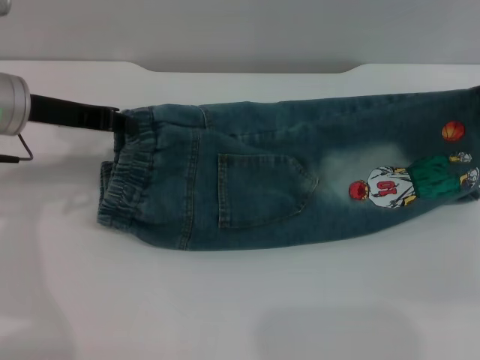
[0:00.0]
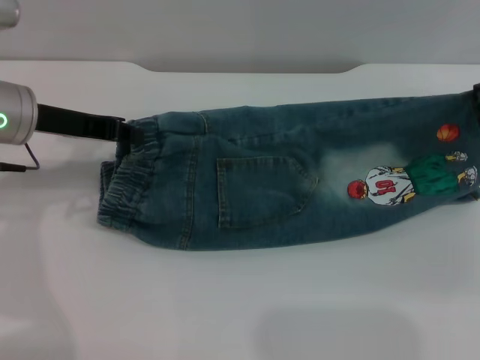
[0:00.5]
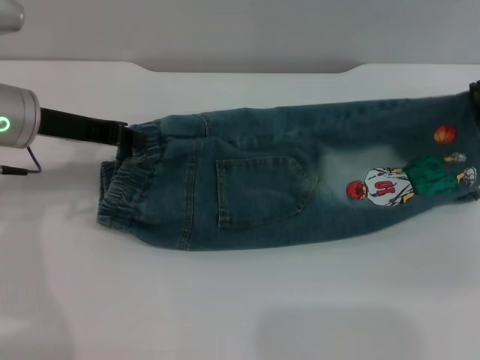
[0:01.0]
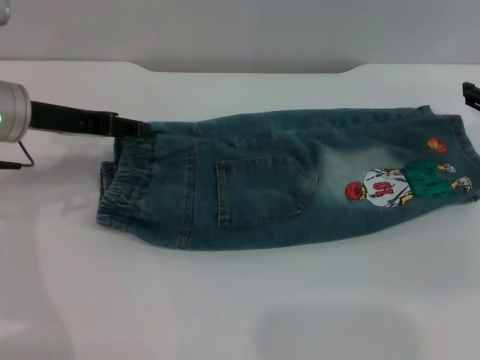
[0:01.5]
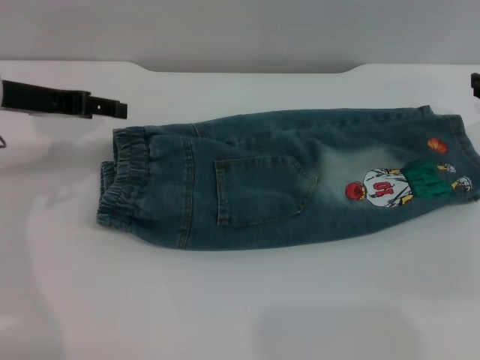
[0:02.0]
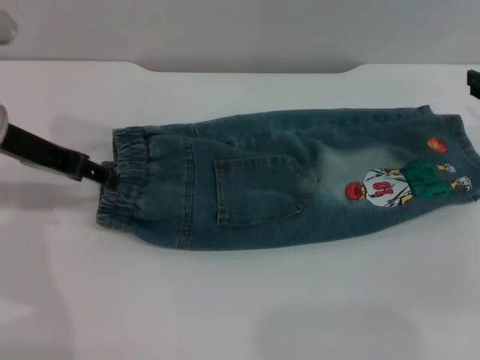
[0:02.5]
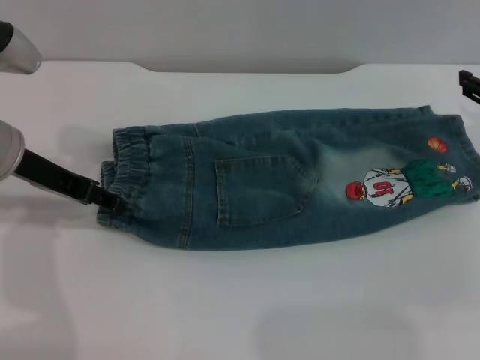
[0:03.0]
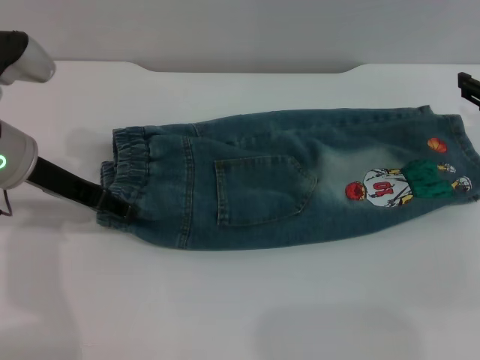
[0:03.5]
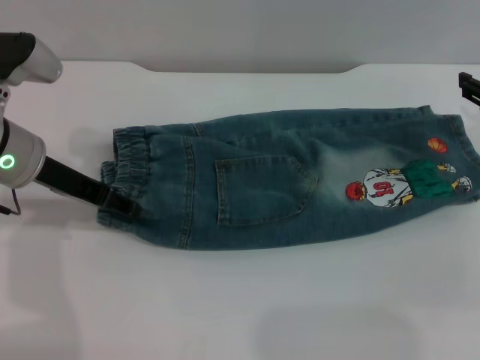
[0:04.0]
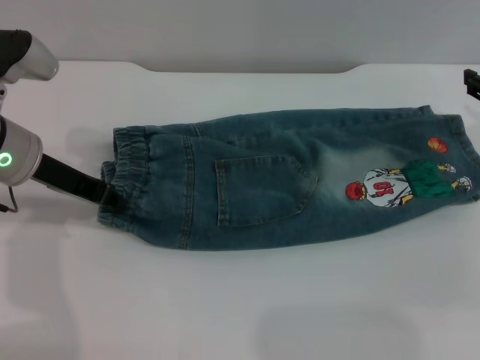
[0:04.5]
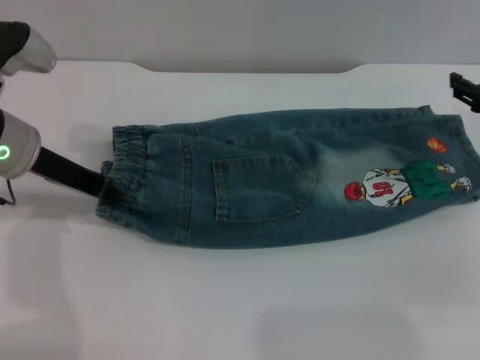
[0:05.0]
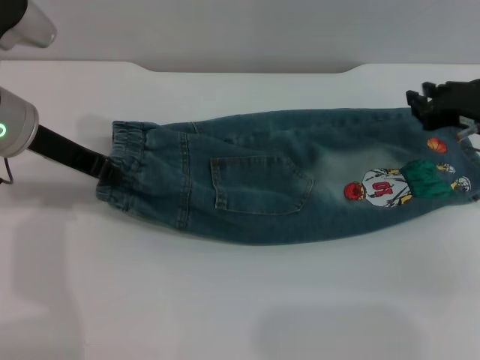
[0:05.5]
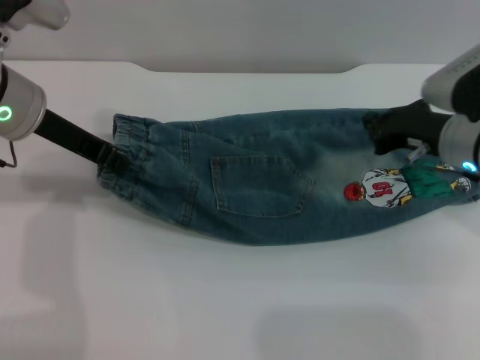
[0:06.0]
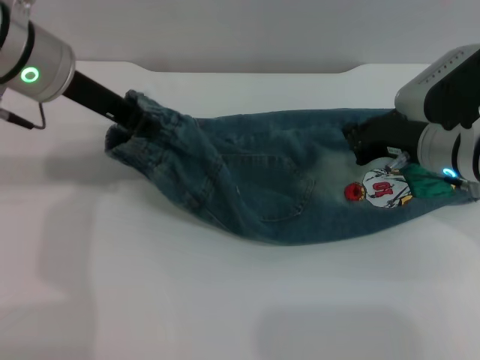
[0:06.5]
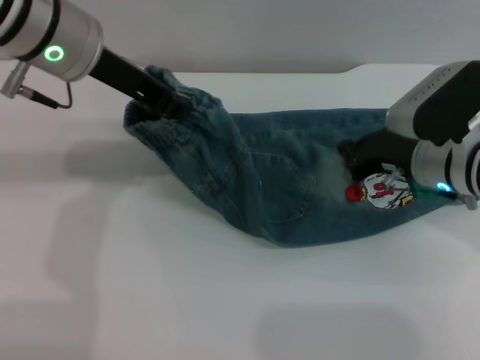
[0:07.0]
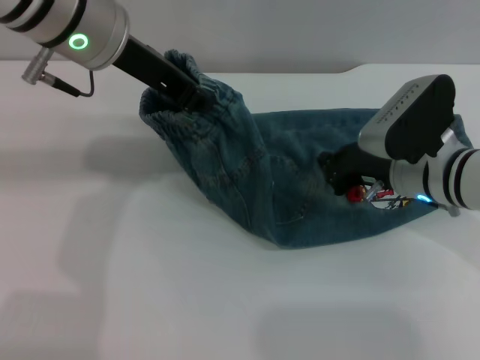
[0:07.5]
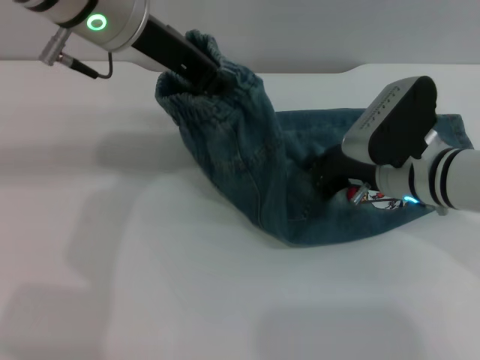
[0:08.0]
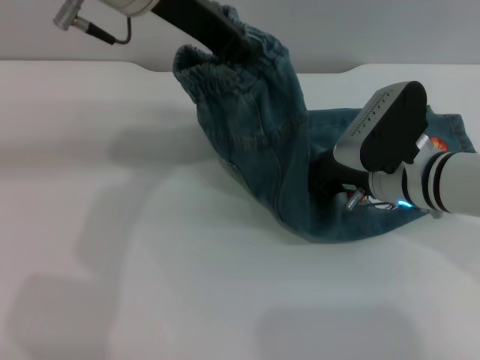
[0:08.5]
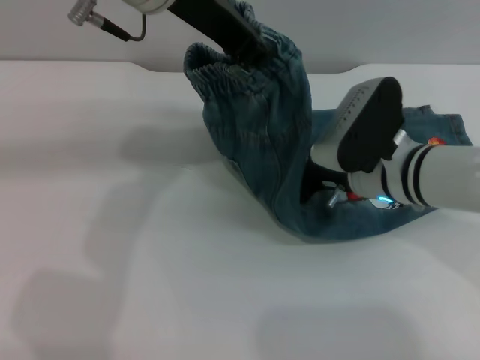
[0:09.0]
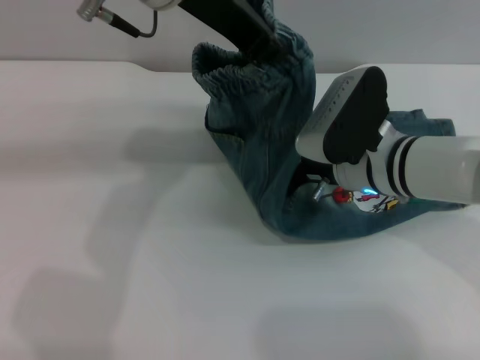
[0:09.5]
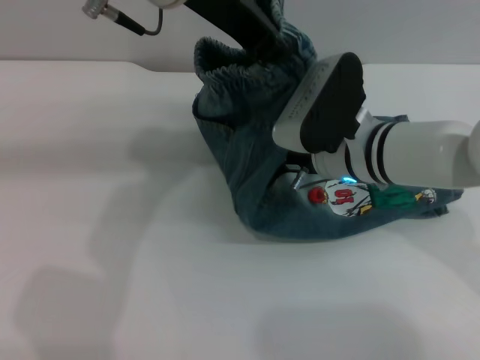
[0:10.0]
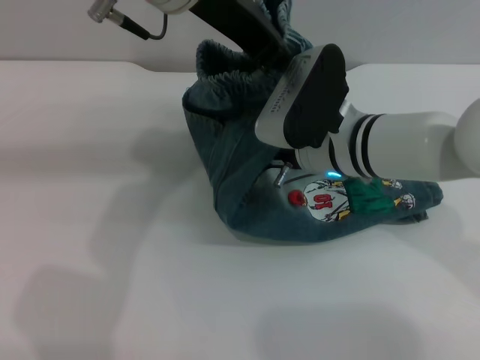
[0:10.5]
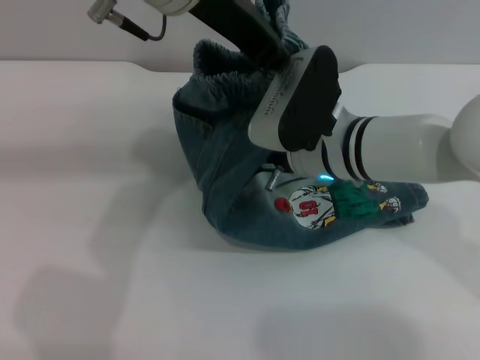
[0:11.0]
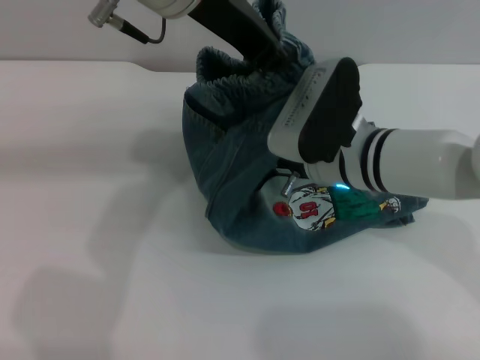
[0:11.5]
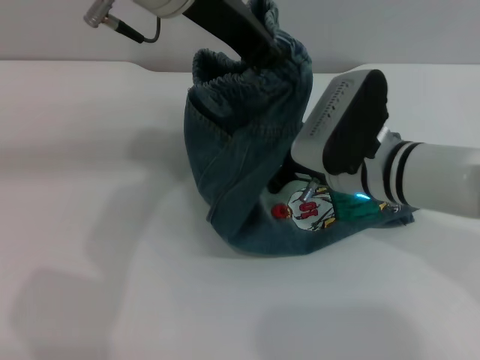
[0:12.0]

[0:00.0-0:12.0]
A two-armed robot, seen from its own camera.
0:00.0 to 0:02.0: The left gripper opens its fingers. The right gripper opens its fingers.
0:02.0 to 0:04.0: The left gripper ends up approximately 5 cm from where it was.
0:04.0 to 0:06.0: The left gripper shifts roughly 5 cm upward, and closes. The right gripper shifts roughly 10 cm to the left, and closes its fingers.
0:06.0 to 0:08.0: The left gripper goes roughly 10 cm to the right and upward, while the right gripper shifts approximately 5 cm to the left.
0:08.0 to 0:10.0: The right gripper shifts approximately 5 cm to the left. Meanwhile the left gripper changes place by some 5 cm.
0:10.0 to 0:12.0: The grippers make only small movements.

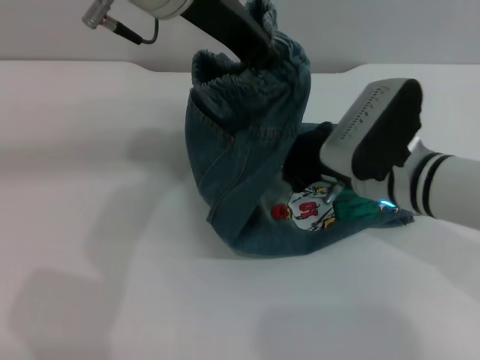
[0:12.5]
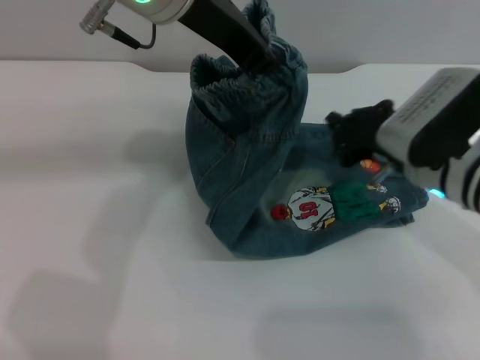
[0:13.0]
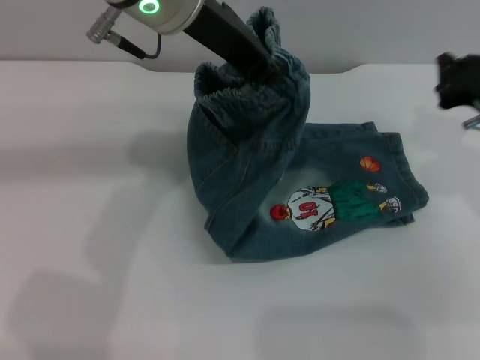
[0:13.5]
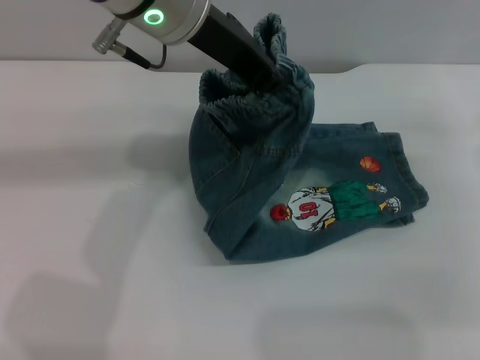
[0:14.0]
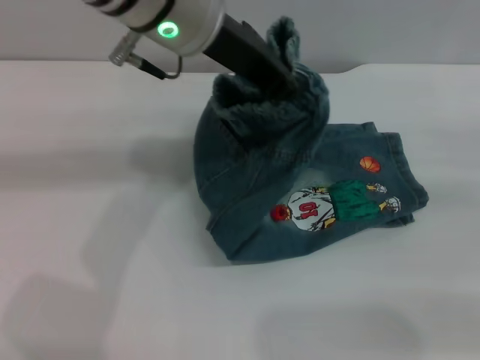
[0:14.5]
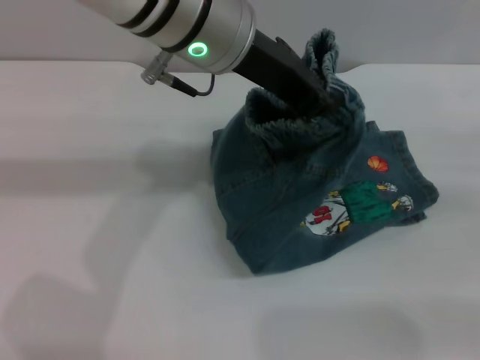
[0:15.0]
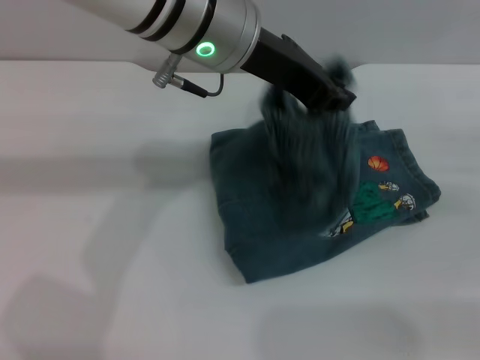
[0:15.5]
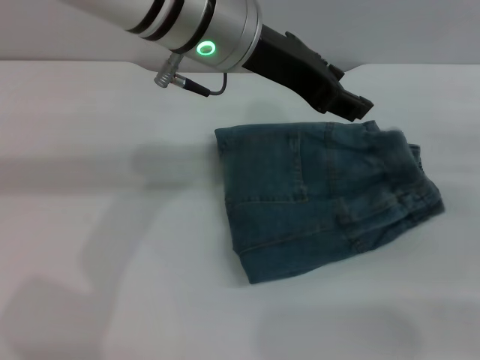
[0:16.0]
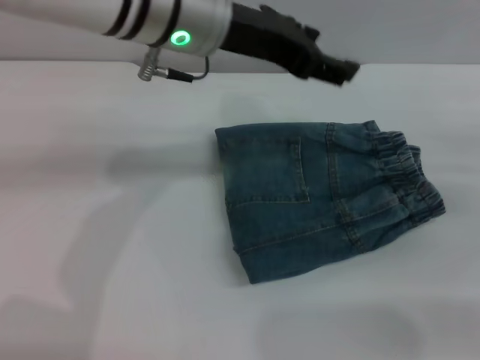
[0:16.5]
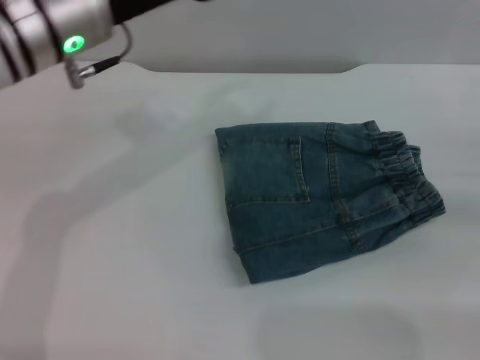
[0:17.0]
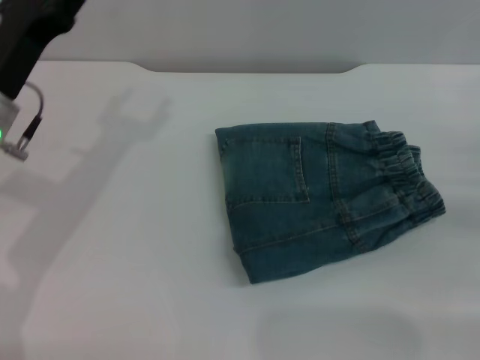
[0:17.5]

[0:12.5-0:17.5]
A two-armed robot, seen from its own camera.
Step, 0:12.5 to 0:16.0: Fold the pants from left to right with the left gripper.
0:12.5 to 0:15.0: The right gripper goes roughly 20 cm to the right.
0:15.0 to 0:17.5: The left gripper travels to the left and downward by roughly 25 cm, and opens.

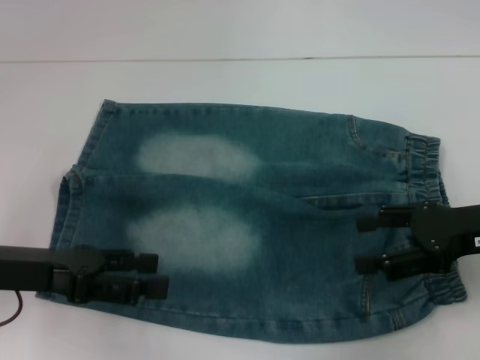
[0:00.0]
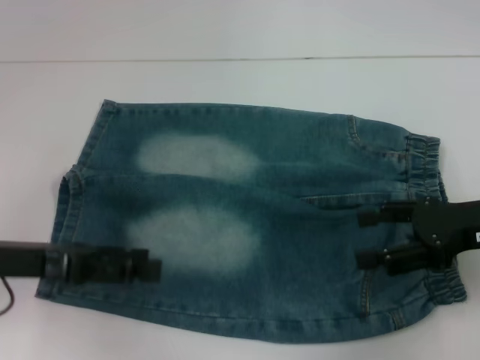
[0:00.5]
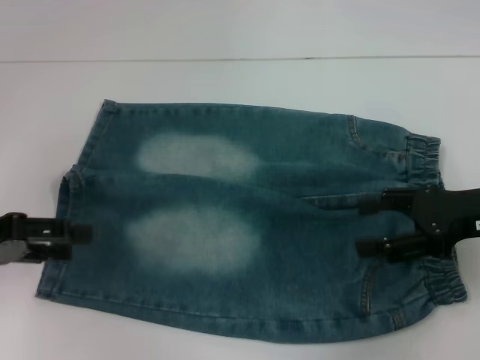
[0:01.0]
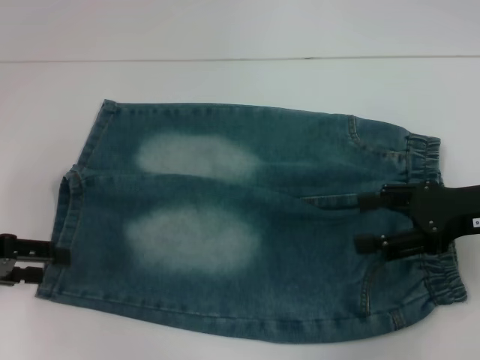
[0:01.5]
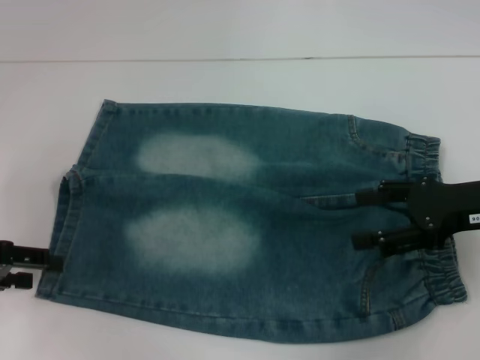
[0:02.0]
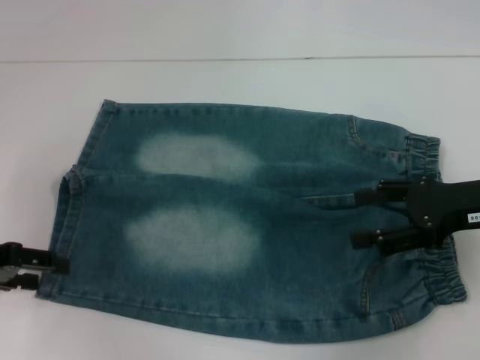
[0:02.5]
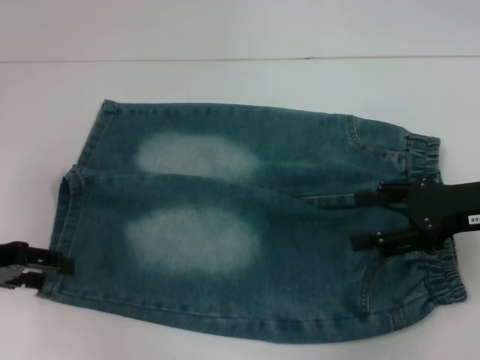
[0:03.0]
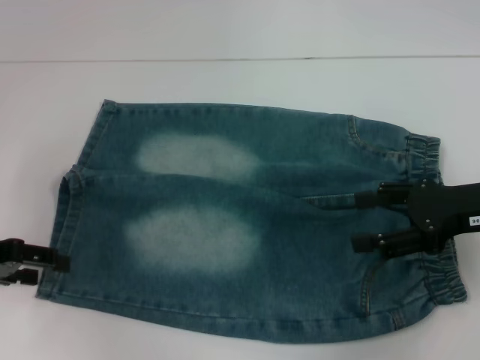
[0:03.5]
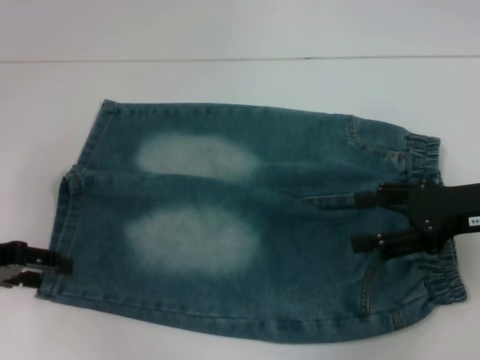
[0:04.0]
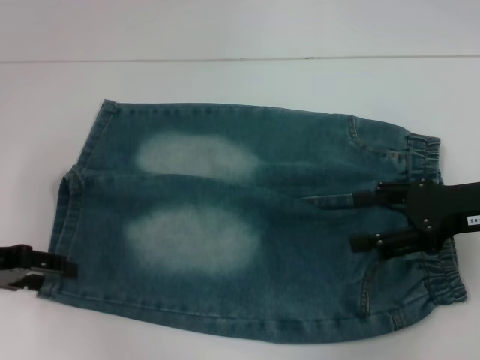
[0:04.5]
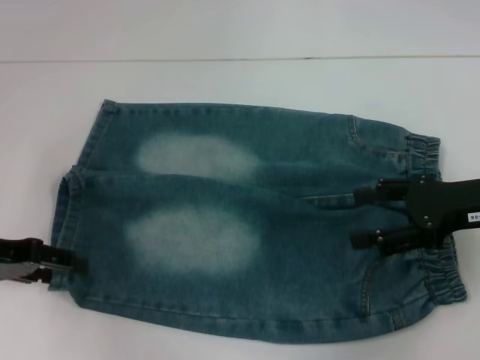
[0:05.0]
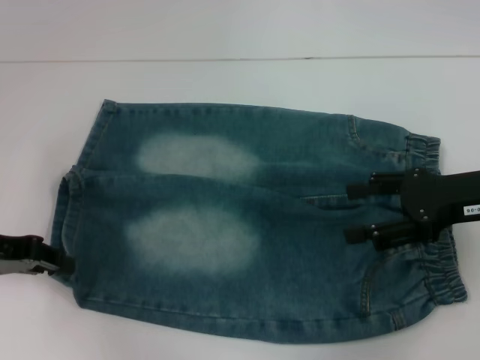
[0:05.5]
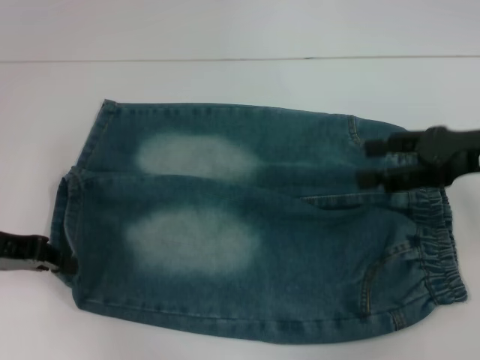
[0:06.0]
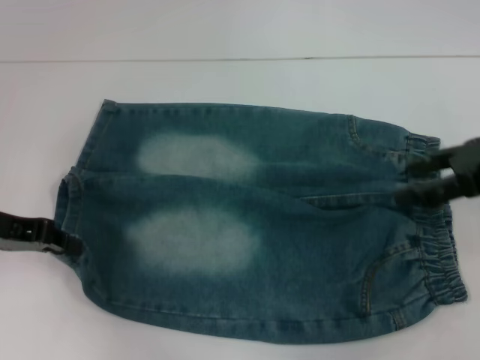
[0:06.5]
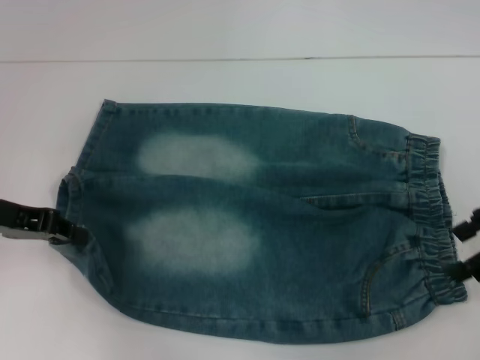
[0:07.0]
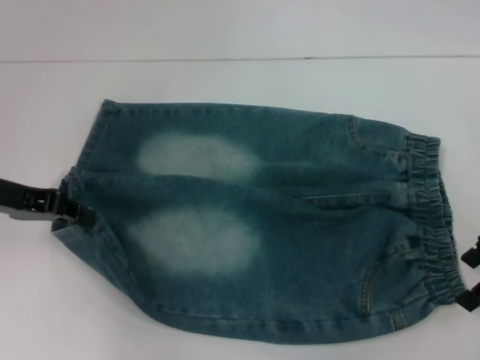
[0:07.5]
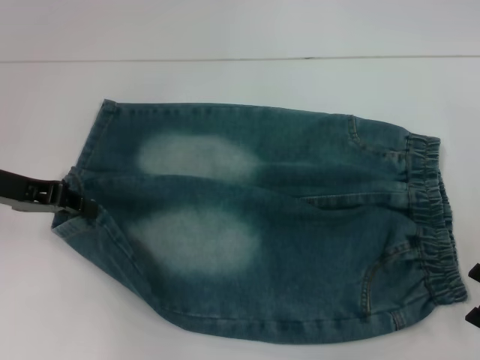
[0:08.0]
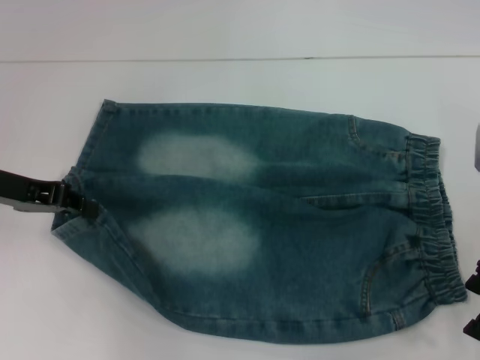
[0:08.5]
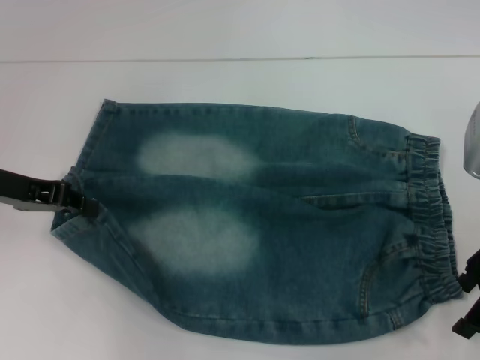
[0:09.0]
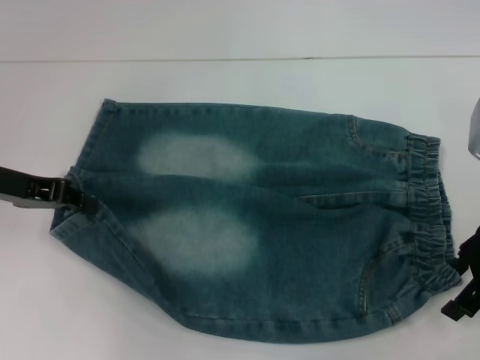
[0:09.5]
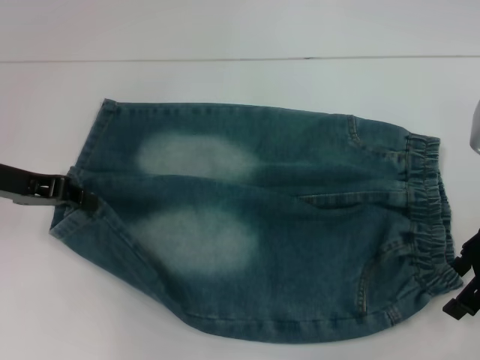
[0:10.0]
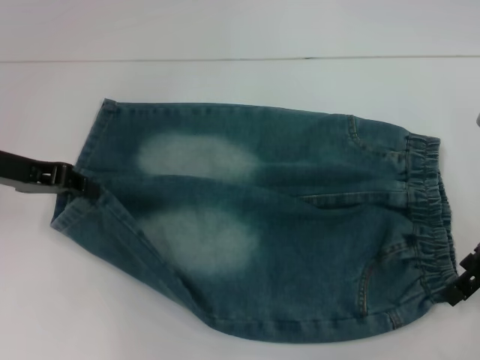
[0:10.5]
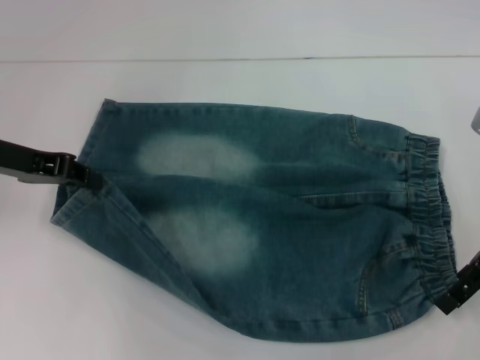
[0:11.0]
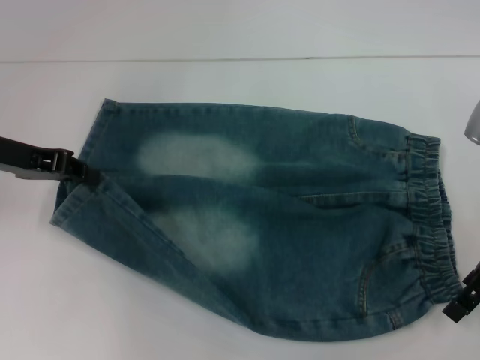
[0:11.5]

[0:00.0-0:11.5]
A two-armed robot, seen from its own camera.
Step, 0:00.0 to 0:05.0: Grab the lower left pant leg with your left hand.
0:00.0 to 0:02.0: The left gripper heads to the left, covering about 10 cm.
0:04.0 to 0:06.0: The left gripper closes up.
0:07.5 to 0:11.5: The grippers move only a little.
